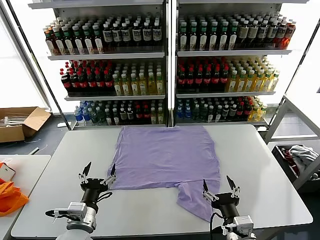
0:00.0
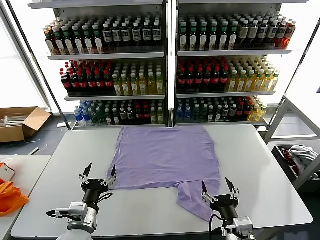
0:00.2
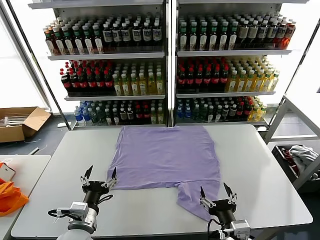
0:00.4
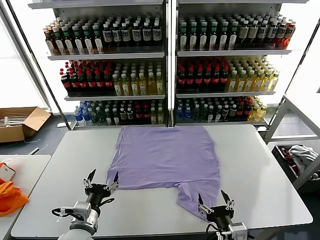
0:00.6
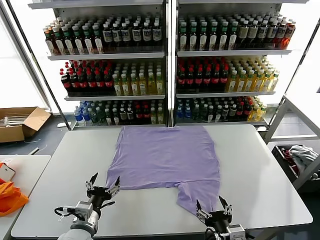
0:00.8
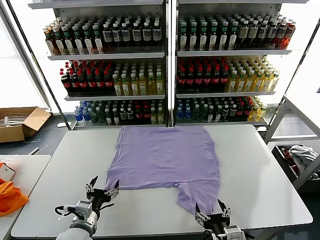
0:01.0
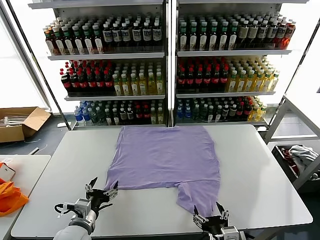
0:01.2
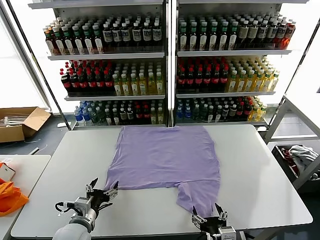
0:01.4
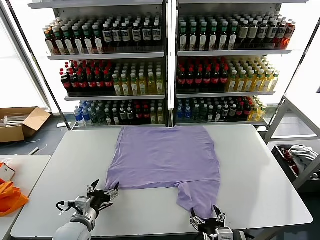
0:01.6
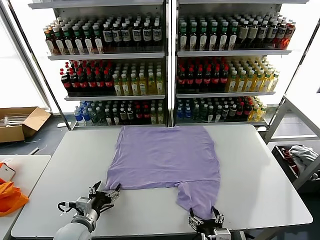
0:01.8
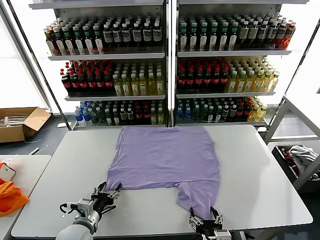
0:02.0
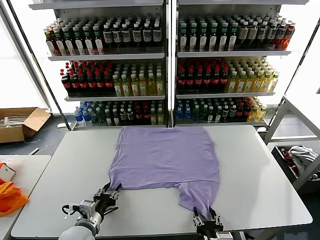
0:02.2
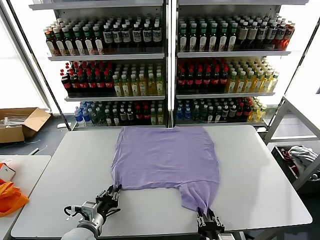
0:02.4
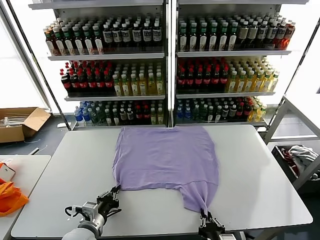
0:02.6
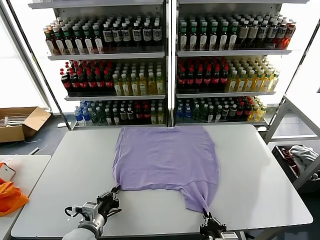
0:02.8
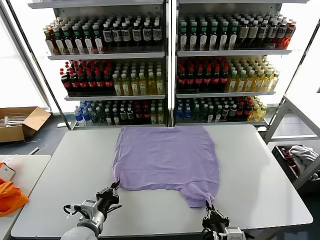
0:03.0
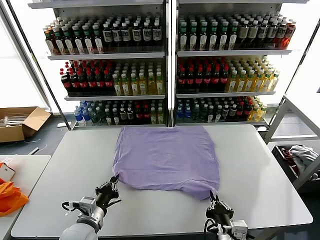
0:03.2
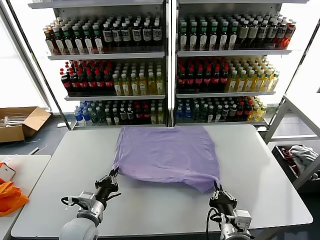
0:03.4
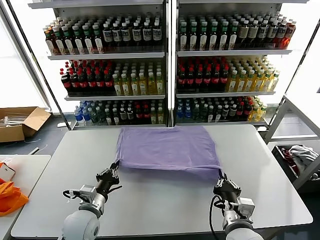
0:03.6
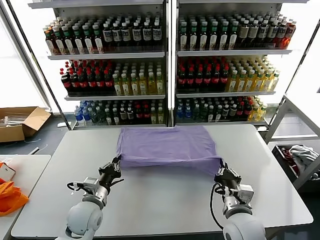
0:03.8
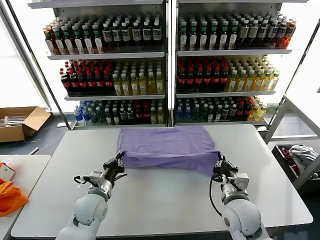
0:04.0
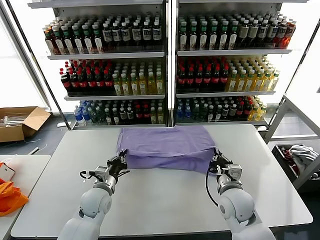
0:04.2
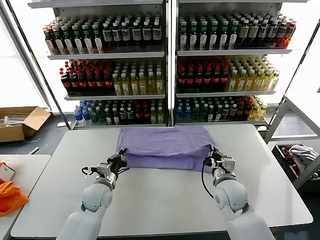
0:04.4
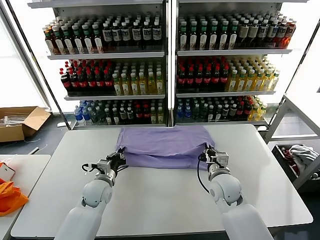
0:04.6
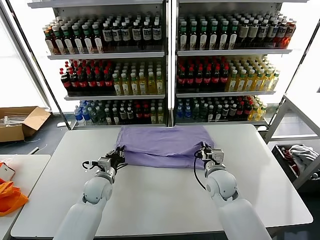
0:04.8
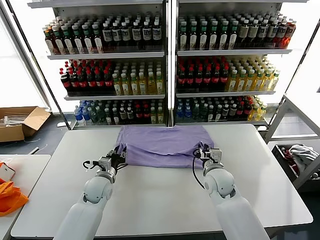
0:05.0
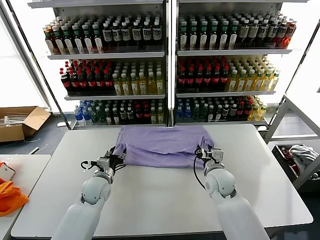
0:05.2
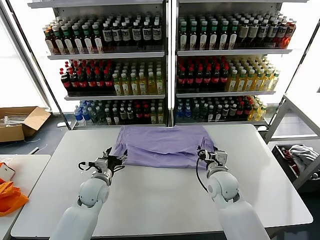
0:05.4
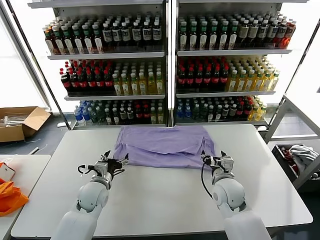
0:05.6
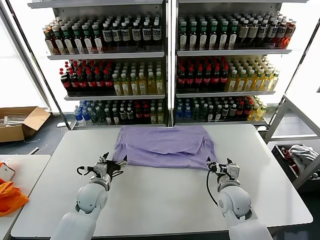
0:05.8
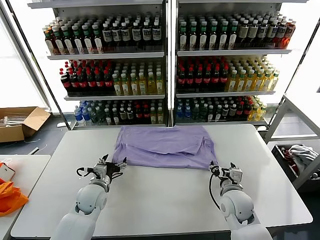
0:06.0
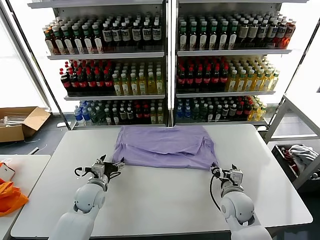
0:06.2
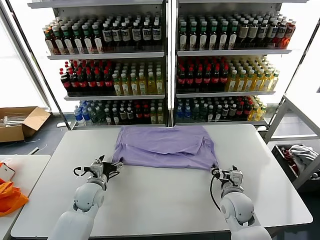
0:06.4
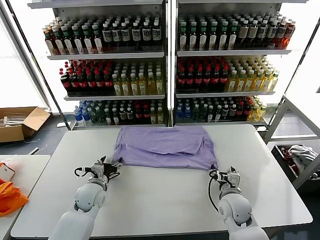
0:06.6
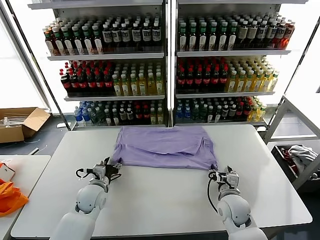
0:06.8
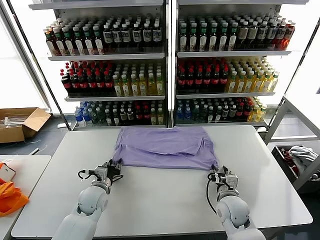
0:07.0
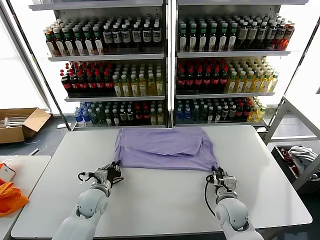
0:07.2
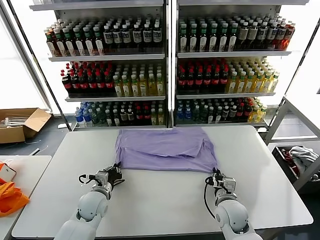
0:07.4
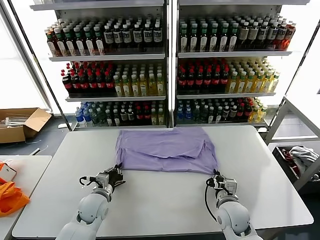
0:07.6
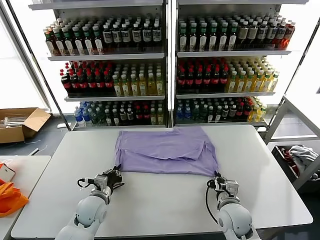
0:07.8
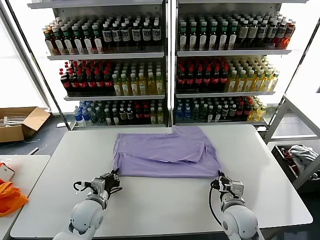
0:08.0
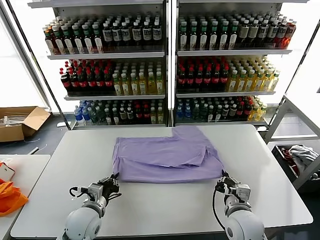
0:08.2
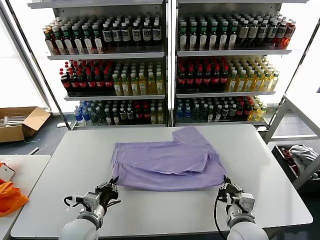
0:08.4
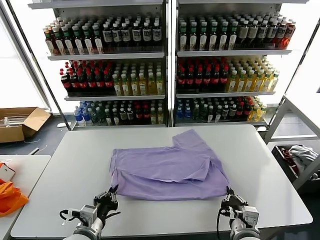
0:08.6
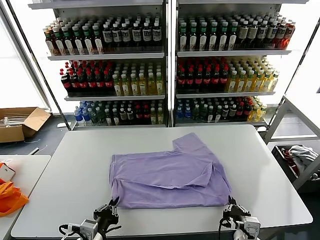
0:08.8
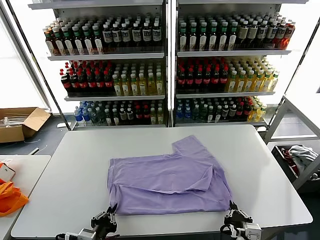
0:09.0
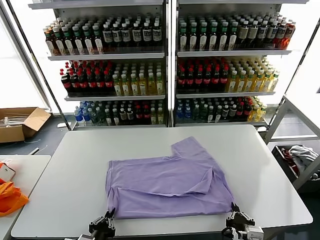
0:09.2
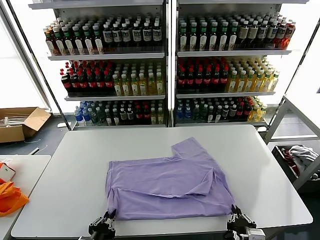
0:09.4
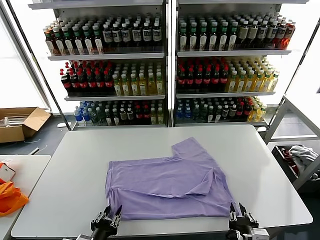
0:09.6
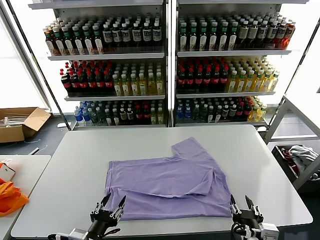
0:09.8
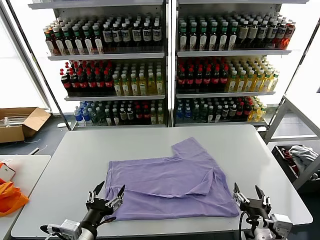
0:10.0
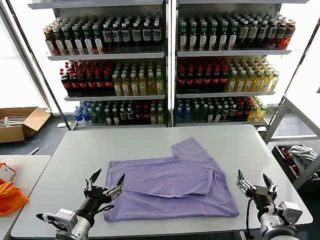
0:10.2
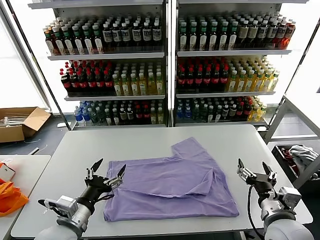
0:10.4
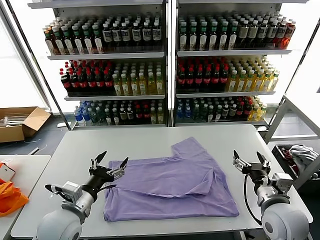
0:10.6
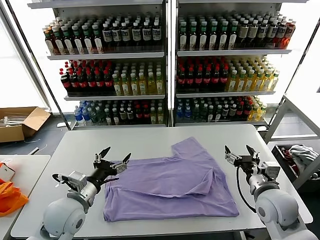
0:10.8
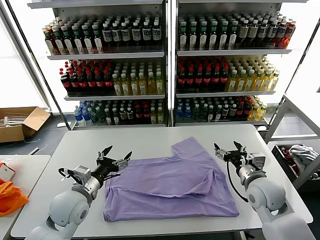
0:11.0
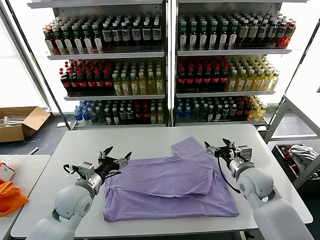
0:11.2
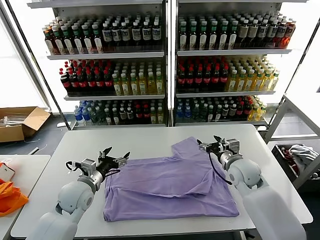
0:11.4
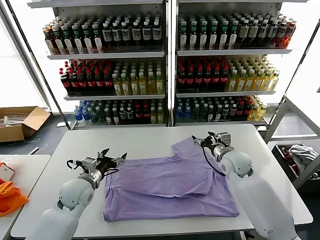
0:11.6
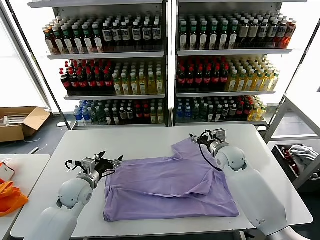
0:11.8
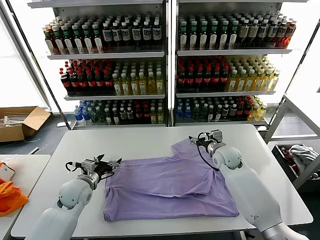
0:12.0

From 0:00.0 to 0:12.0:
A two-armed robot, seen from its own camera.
Task of the whole recording: fold and organize the clothes.
Step, from 0:00.0 to 0:03.0: use both grippers simultaneously to clamp the lower edge of the clothing fabric.
Step, from 0:03.2 to 0:05.4: use both grippers to drag the lower edge of the fabric forward and fold it over the upper edge.
Step, from 0:05.6 to 0:09.6: Drag the clothes downward with both gripper.
From 0:01.6 to 0:03.0: The left gripper closes up. The right gripper closes.
From 0:03.0 to 0:04.4: Both grippers move forward, roughly 20 cm.
From 0:04.4 to 0:06.0: The right gripper ends up approximately 5 cm from where it was, and opens its fingers; the left gripper opens its fingers.
From 0:06.0 to 0:07.6: The right gripper closes its fingers, while the left gripper closes.
From 0:07.6 to 0:09.0: Both grippers move backward, about 20 cm.
From 0:09.0 to 0:10.4: The right gripper shifts some 15 cm forward, upward and to the right, and opens up, while the left gripper heads upward and forward, covering about 10 cm, and opens its fingers.
From 0:10.4 to 0:12.0: The right gripper goes about 30 cm forward, while the left gripper moves forward and downward, approximately 20 cm.

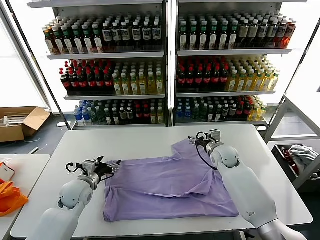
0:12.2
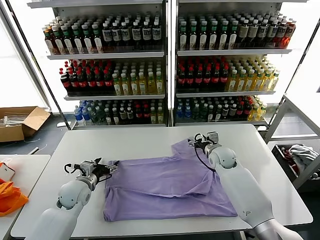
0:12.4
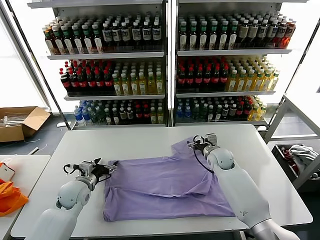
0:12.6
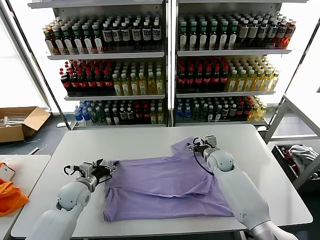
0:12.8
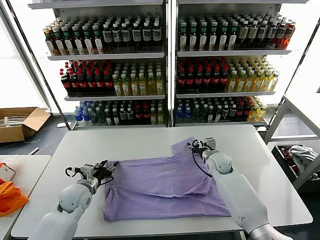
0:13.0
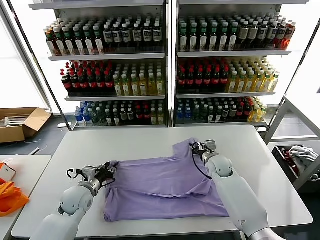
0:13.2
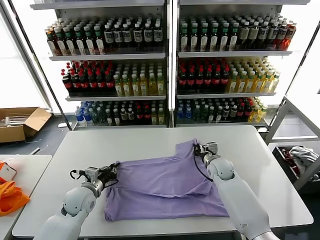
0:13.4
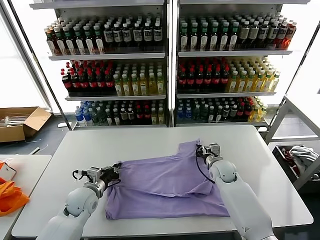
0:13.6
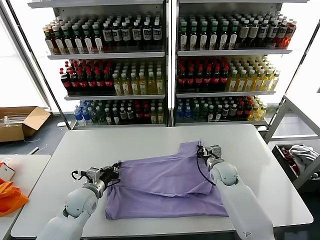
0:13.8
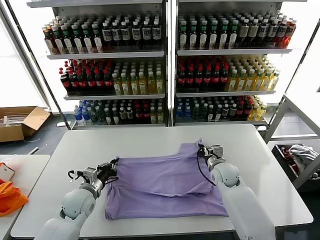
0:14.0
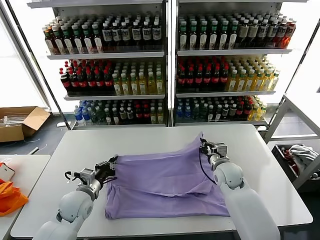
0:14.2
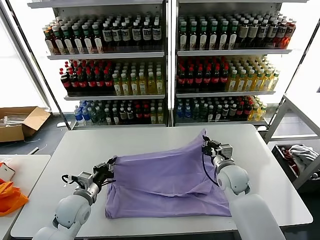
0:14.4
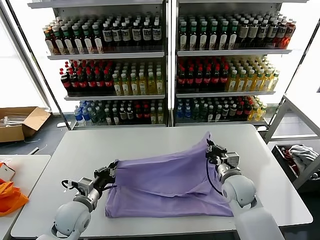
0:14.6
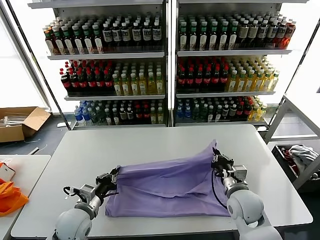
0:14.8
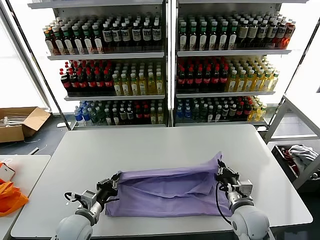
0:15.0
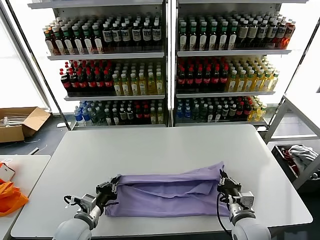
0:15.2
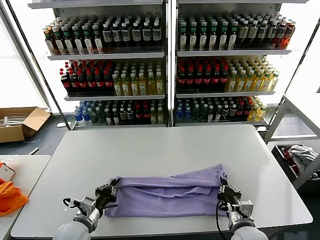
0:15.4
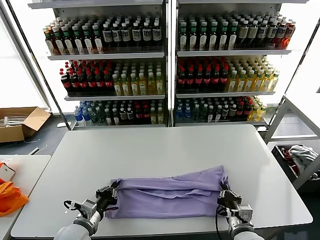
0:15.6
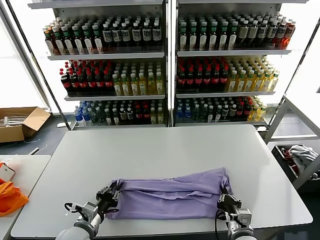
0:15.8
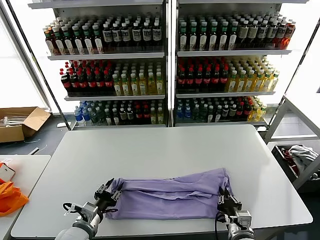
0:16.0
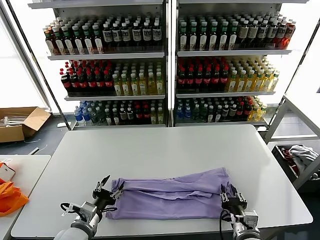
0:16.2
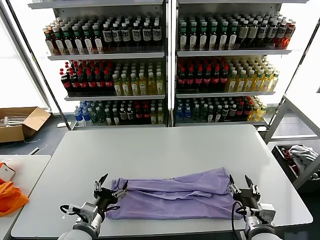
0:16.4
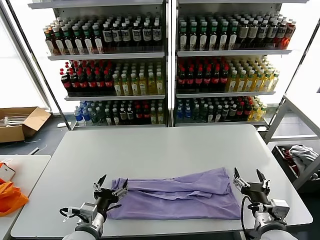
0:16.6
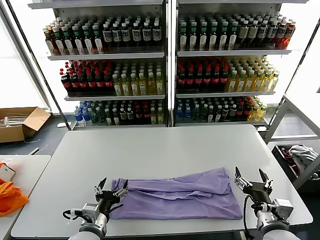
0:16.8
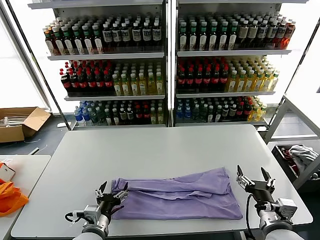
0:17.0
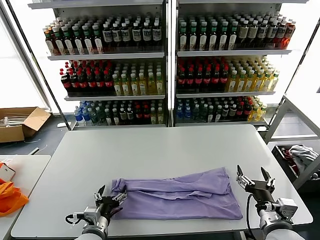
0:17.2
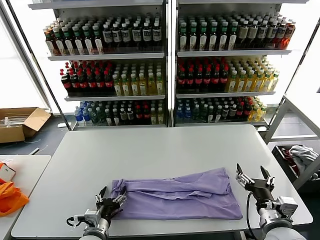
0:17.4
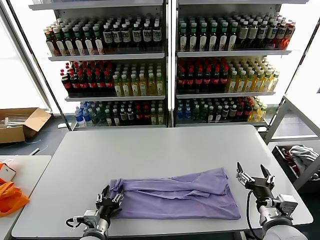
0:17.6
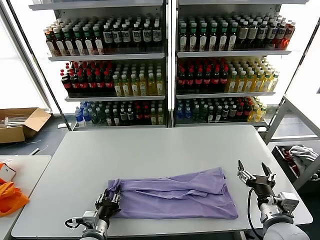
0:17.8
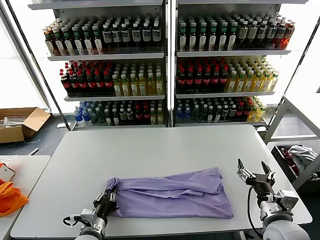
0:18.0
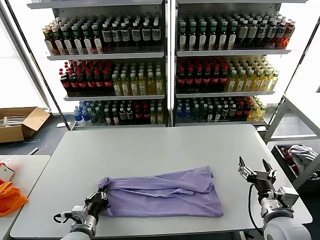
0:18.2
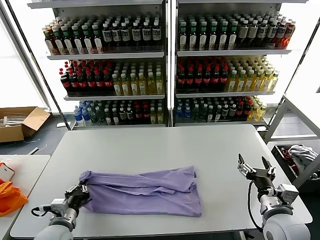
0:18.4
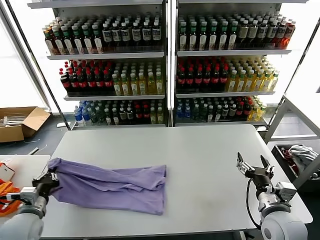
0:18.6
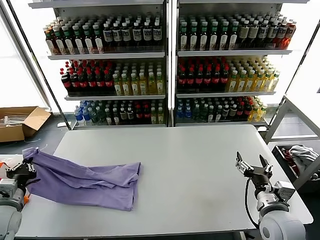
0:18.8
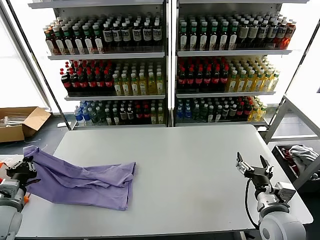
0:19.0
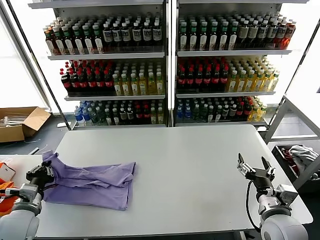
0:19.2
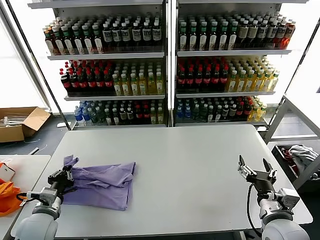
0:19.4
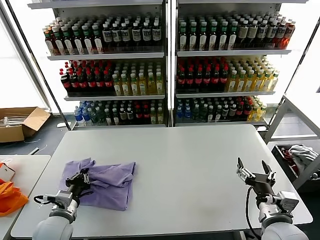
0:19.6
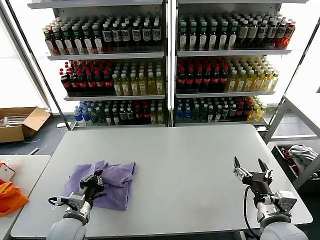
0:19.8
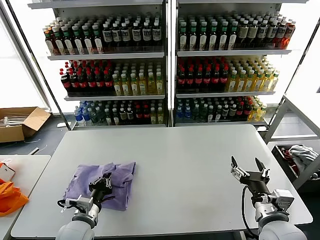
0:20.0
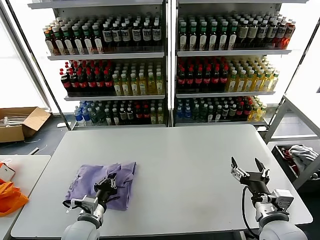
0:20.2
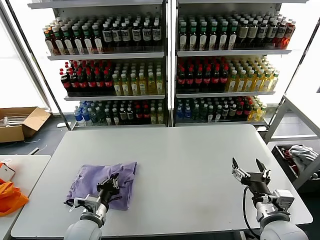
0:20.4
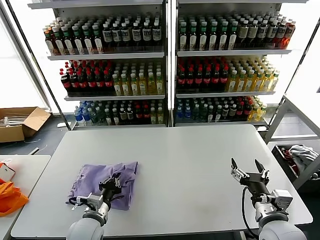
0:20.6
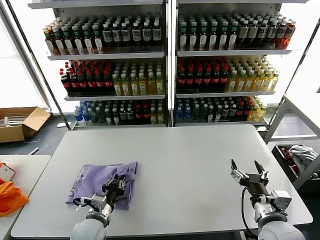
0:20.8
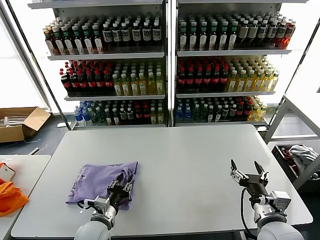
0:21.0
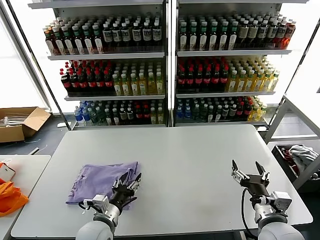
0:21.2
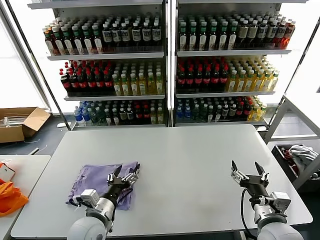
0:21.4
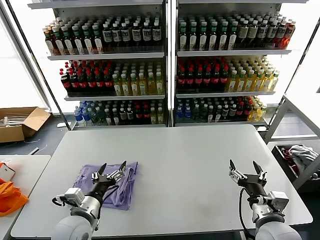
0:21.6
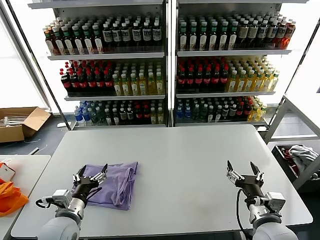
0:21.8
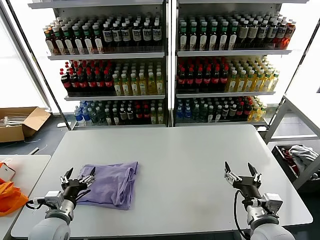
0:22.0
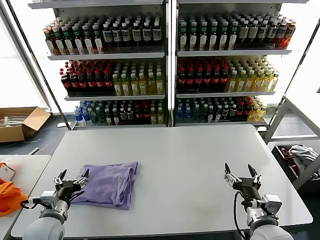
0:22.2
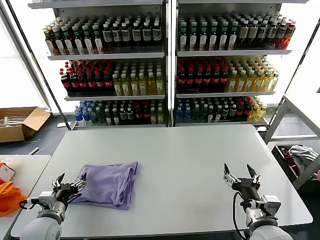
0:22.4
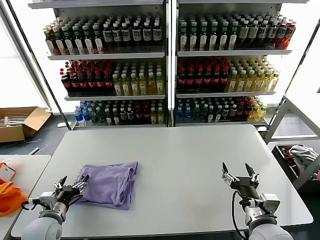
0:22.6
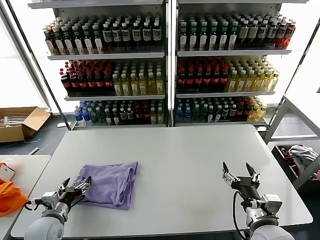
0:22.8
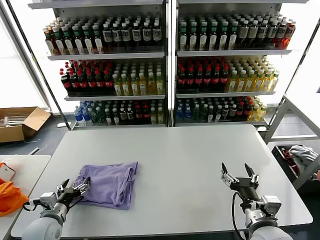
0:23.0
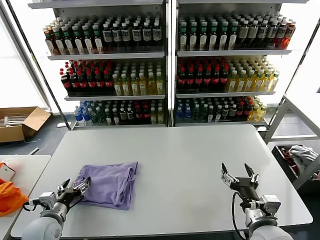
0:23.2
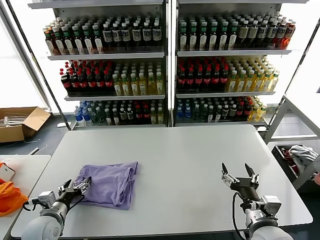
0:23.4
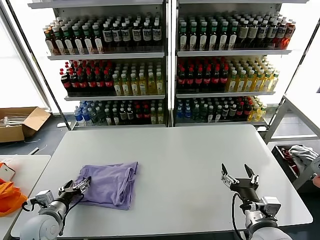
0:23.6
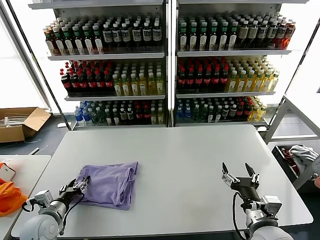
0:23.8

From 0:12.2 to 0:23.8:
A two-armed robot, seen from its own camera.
Task of the whole recording: fold and organize the clothes.
Step, from 0:14.0 to 0:16.2: use both grippers to drag the upper edge of the fabric backward and fold it over the lower edge.
Step, from 0:16.4 to 0:18.0: use the left gripper to clamp the left edge of the fabric.
Step, from 0:18.2 to 0:21.2: use the left gripper to drag the left edge of the fabric to the left and folds it over the right edge.
From 0:12.2 to 0:13.6: The right gripper is displaced downward by about 5 cm, and closes. The left gripper closes its fingers.
From 0:13.6 to 0:15.0: The right gripper heads backward, covering some 20 cm. The left gripper is displaced backward by approximately 10 cm.
From 0:15.0 to 0:16.6: The grippers both shift backward by about 5 cm. The right gripper opens up, while the left gripper opens up.
From 0:16.6 to 0:18.0: The left gripper travels downward by some 5 cm, and closes its fingers.
From 0:18.0 to 0:19.4: The left gripper goes some 15 cm to the left and upward.
From 0:19.4 to 0:21.0: The left gripper heads to the right, covering roughly 15 cm, and opens its fingers.
From 0:21.0 to 0:22.4: The left gripper heads to the left, covering roughly 15 cm, and opens its fingers.
